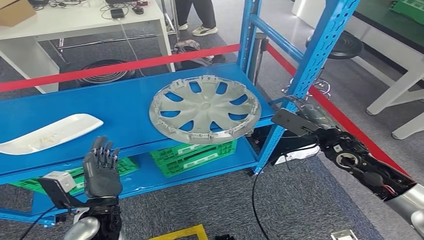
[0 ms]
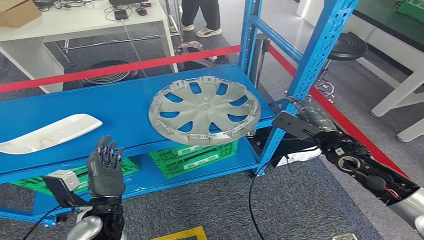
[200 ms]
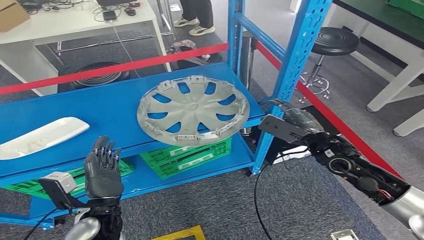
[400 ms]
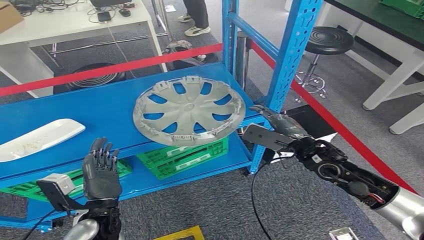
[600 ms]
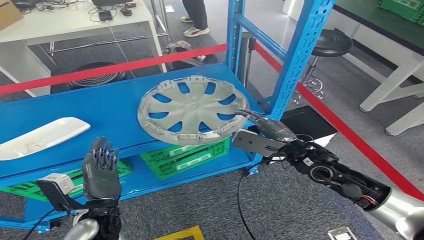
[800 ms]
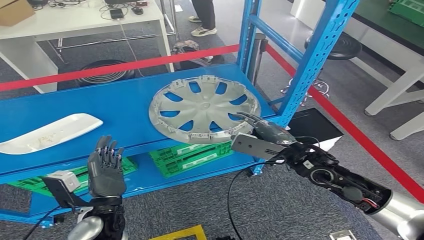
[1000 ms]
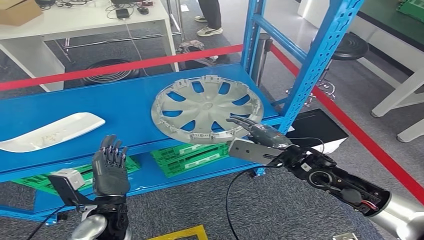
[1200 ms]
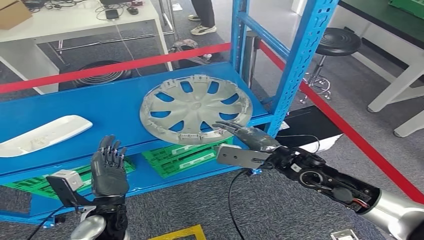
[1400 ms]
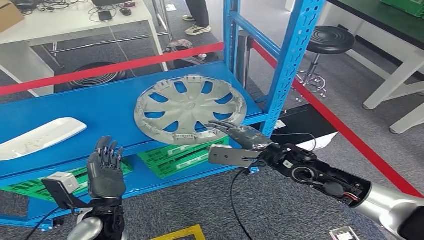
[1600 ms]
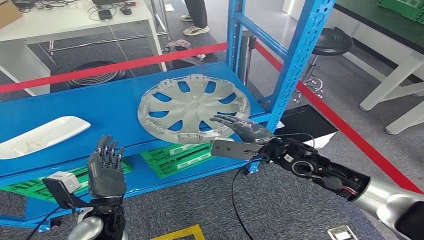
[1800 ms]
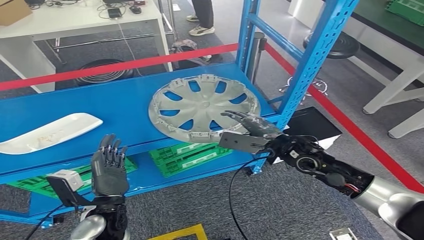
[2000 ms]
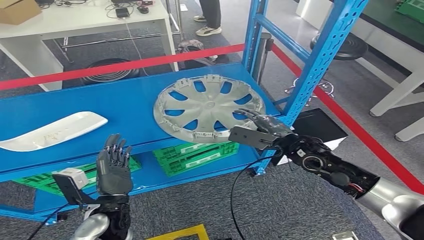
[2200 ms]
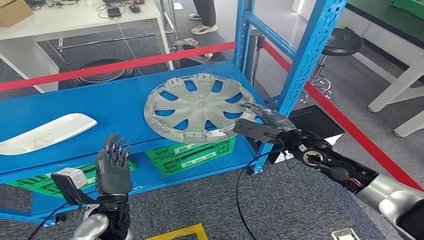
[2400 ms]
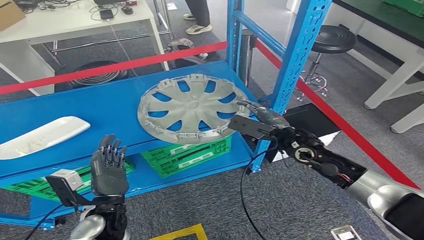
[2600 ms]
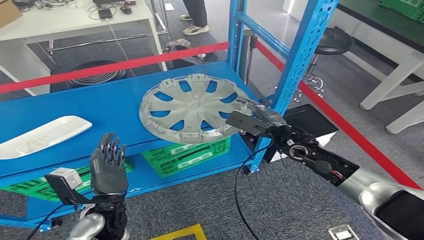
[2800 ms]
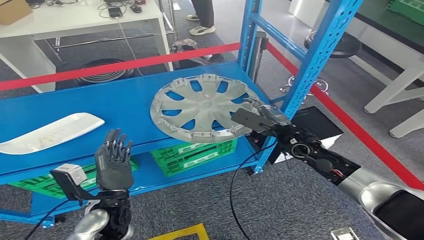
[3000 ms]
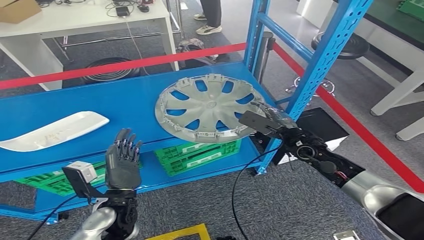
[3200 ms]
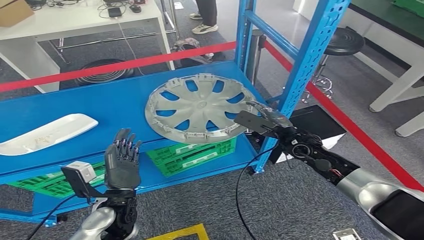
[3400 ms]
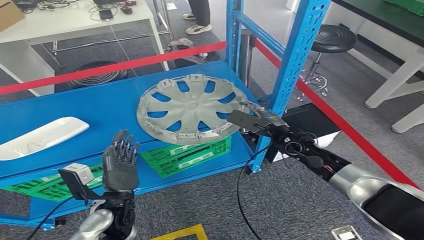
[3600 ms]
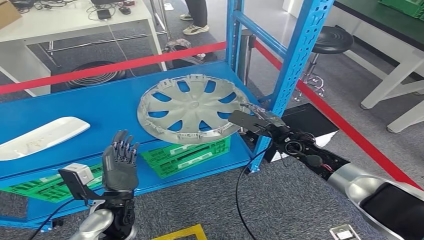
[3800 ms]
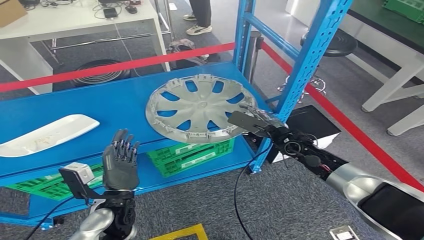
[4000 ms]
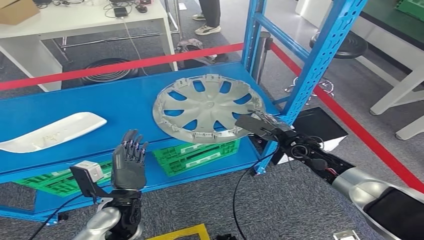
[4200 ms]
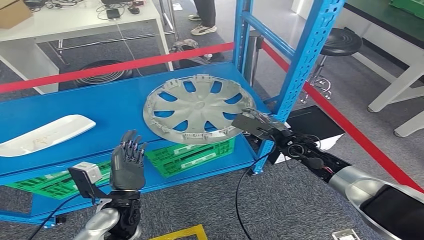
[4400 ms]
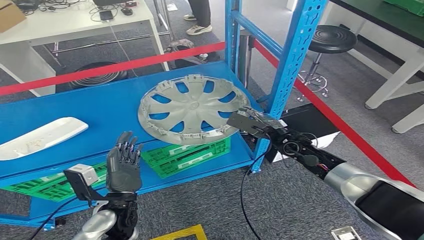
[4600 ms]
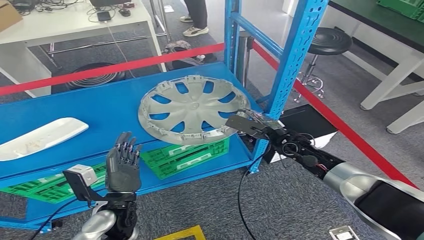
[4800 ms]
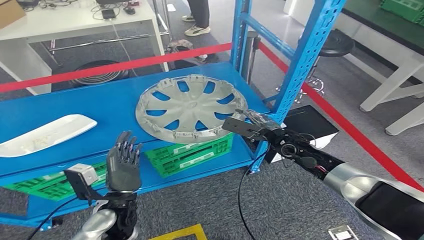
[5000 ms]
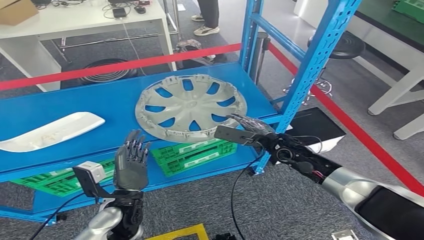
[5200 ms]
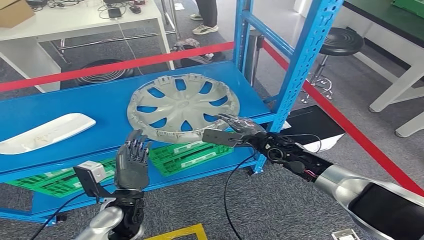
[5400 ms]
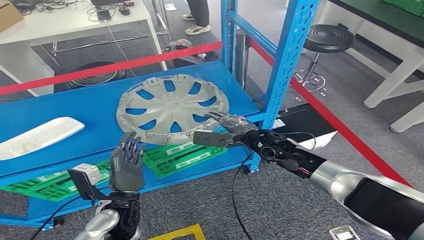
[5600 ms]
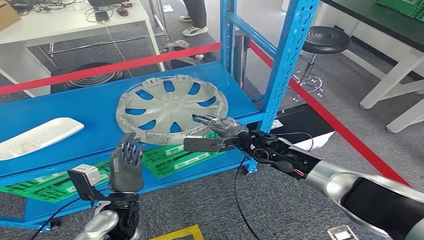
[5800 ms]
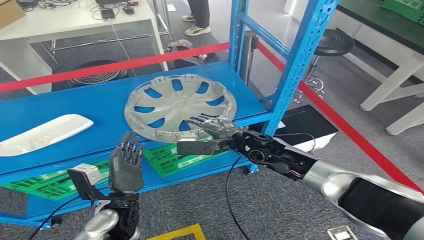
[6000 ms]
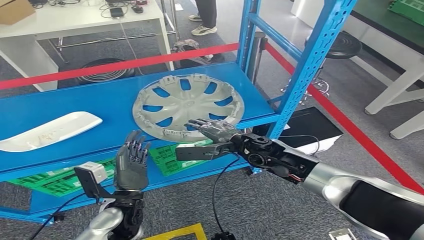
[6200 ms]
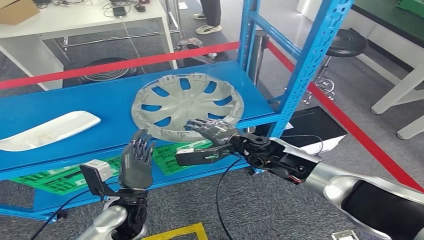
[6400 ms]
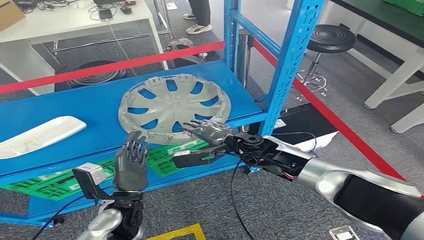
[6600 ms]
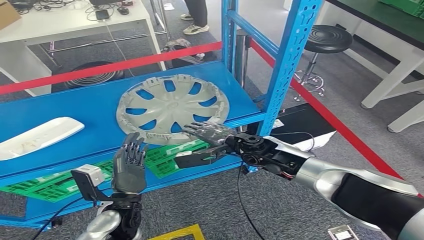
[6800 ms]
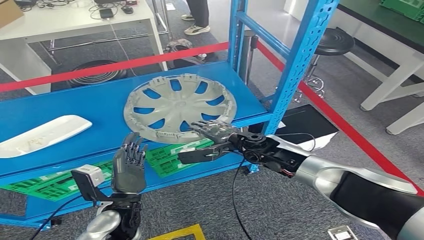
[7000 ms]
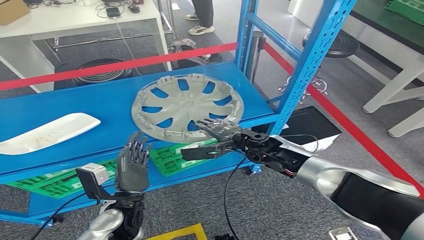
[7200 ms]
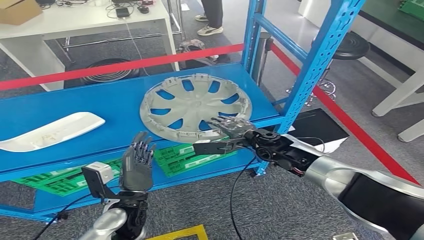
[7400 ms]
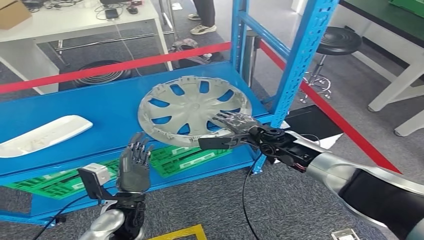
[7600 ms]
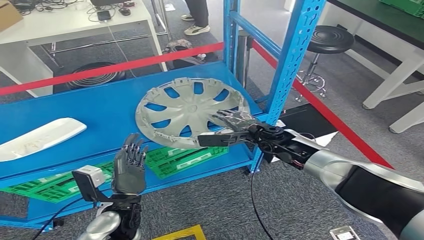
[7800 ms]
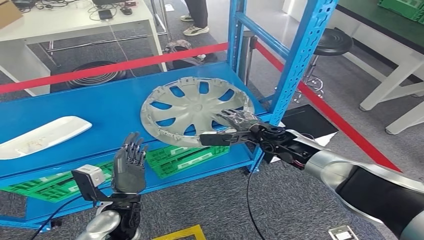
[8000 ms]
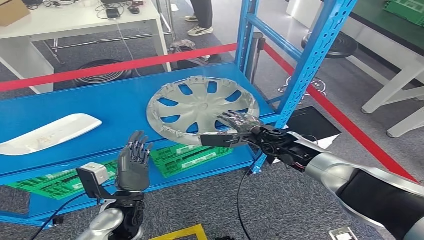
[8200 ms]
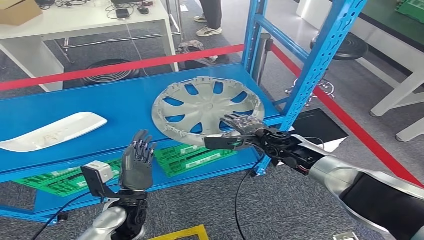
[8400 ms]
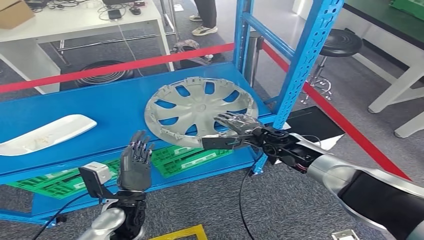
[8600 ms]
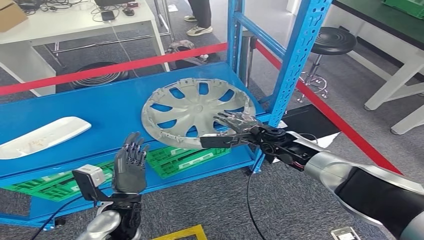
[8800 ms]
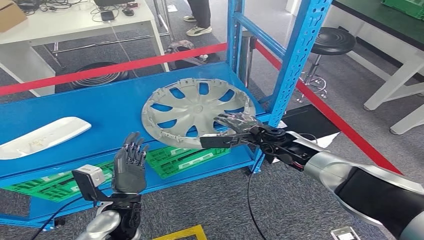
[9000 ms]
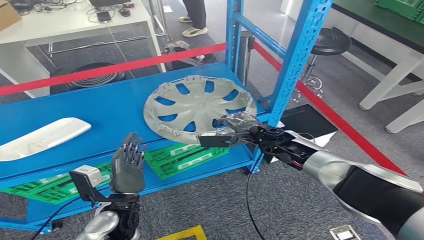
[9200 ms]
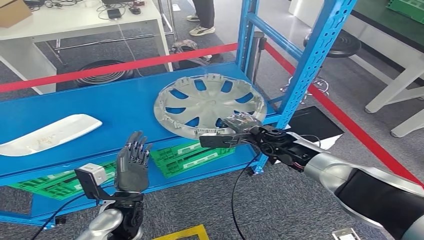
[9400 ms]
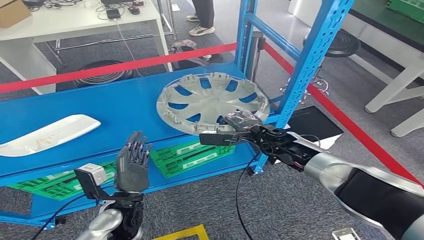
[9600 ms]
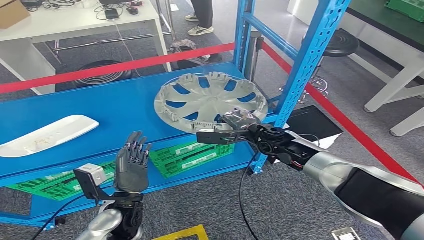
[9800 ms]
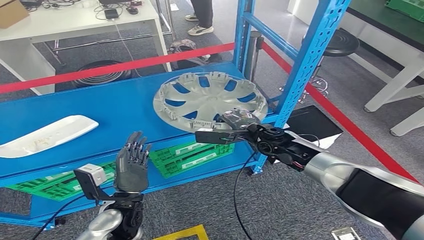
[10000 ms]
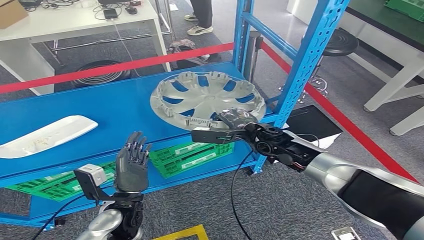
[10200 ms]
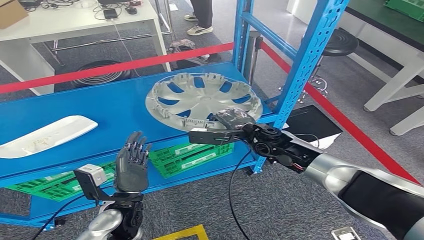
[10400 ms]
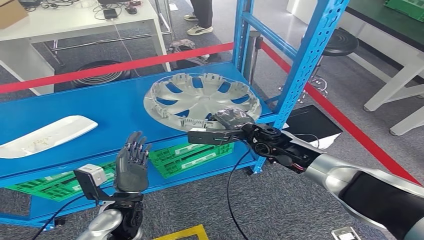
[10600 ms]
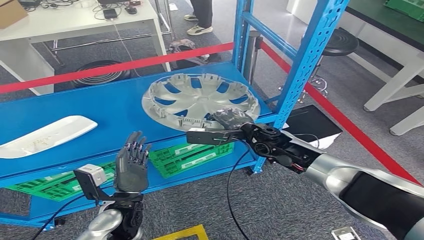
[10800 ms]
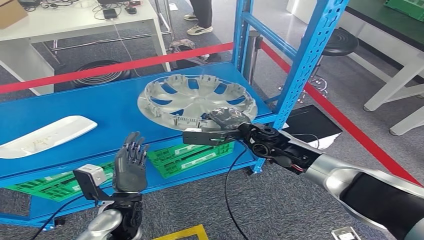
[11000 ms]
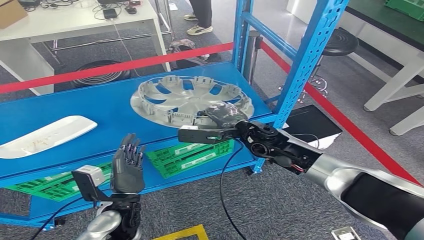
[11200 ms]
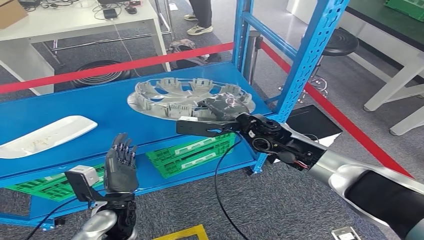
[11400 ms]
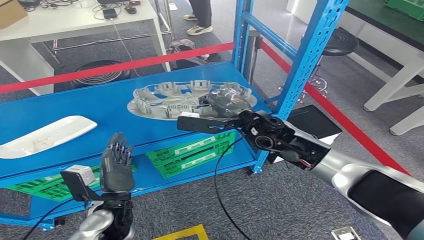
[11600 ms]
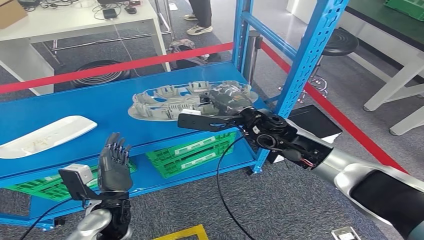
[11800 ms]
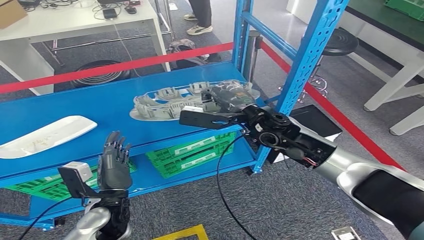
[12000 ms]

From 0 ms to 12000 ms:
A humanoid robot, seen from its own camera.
From 7600 ms to 10400 ms: There are only small adjustments of the hands.
From 10400 ms to 12000 ms: The right hand is displaced upward by some 10 cm.

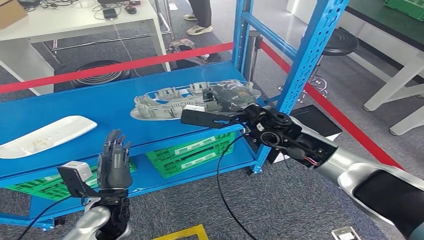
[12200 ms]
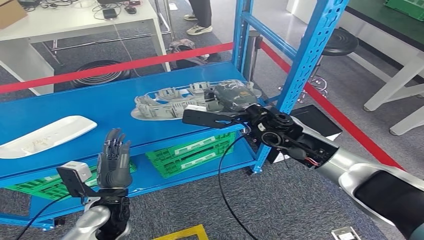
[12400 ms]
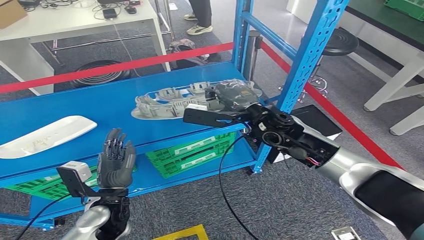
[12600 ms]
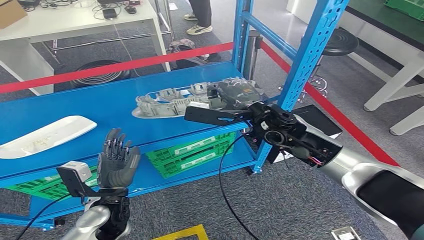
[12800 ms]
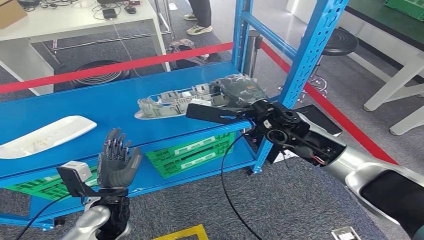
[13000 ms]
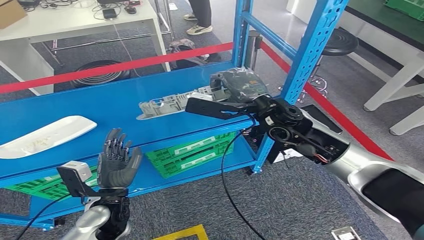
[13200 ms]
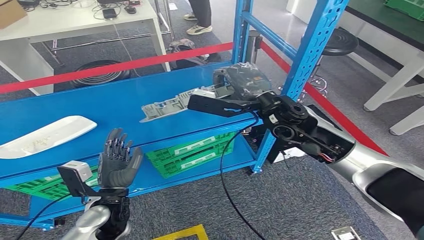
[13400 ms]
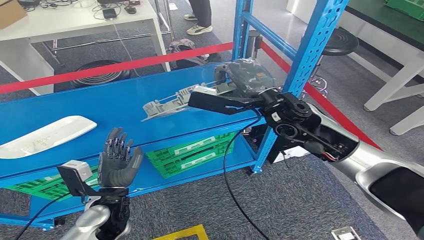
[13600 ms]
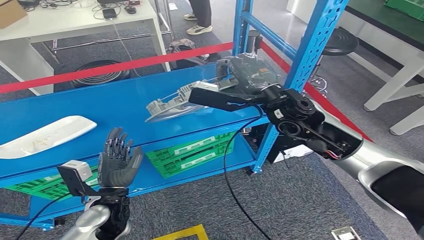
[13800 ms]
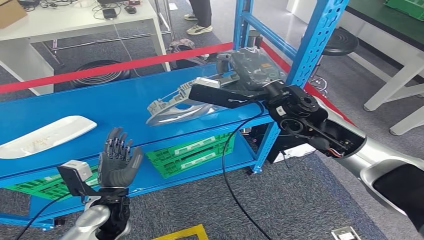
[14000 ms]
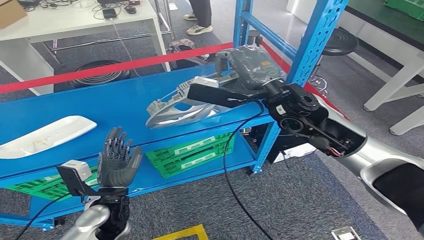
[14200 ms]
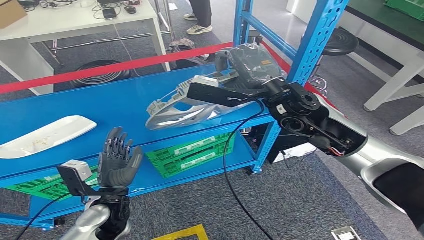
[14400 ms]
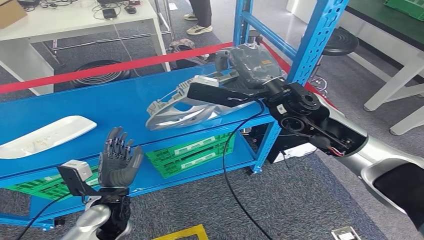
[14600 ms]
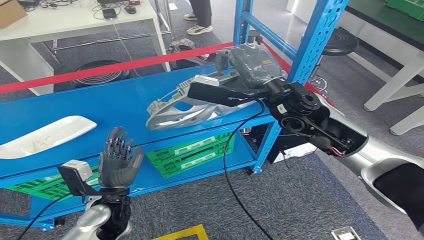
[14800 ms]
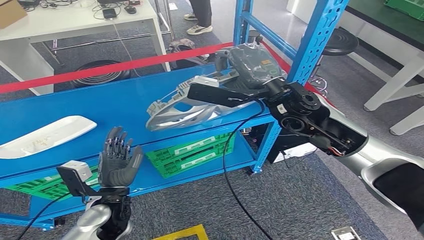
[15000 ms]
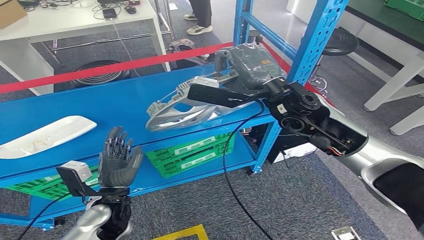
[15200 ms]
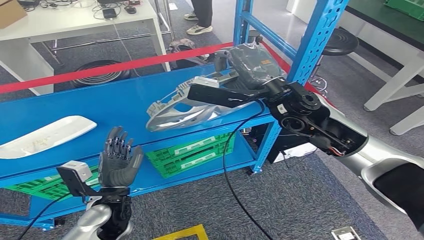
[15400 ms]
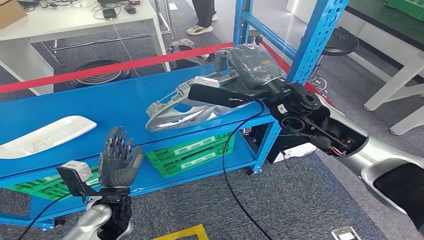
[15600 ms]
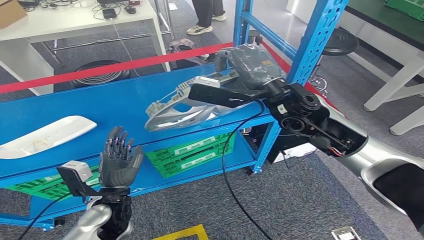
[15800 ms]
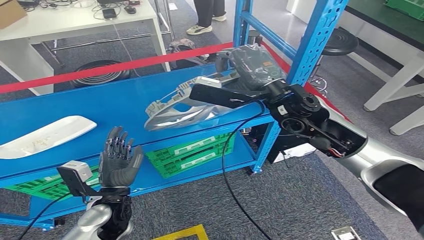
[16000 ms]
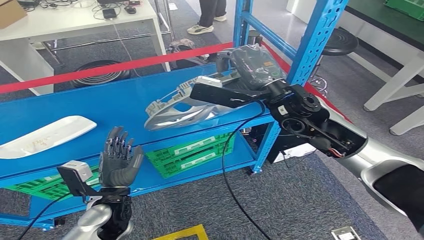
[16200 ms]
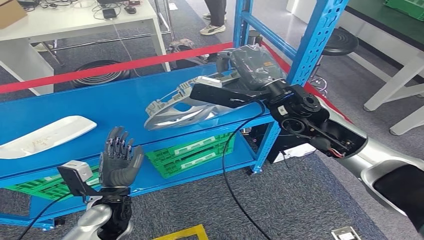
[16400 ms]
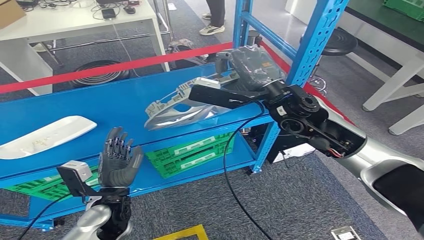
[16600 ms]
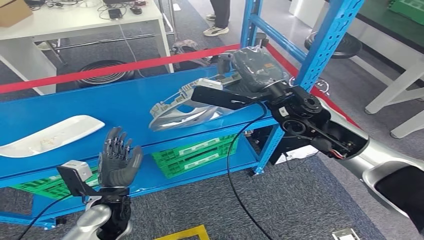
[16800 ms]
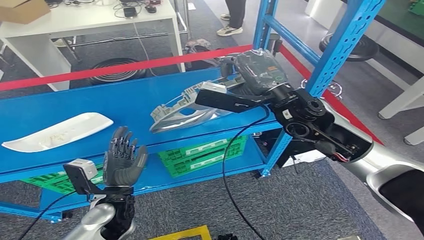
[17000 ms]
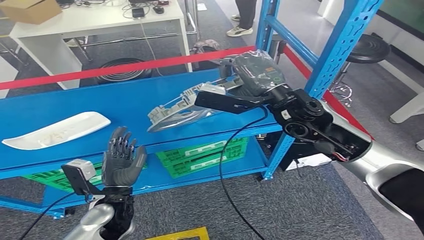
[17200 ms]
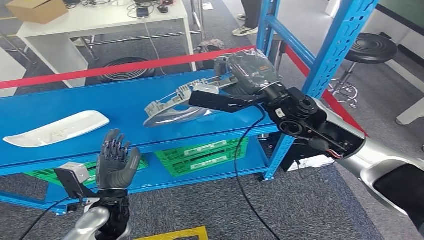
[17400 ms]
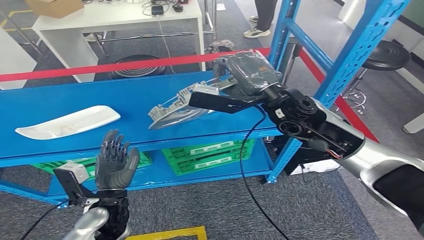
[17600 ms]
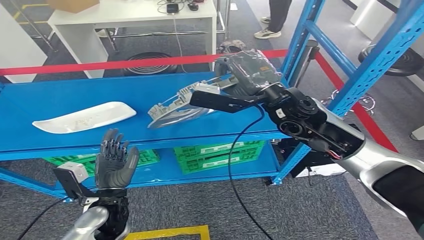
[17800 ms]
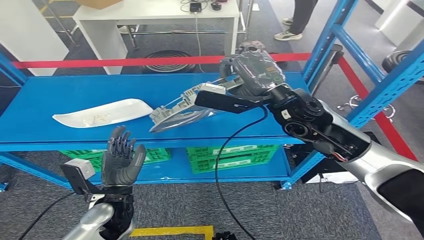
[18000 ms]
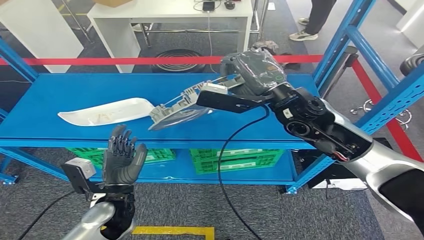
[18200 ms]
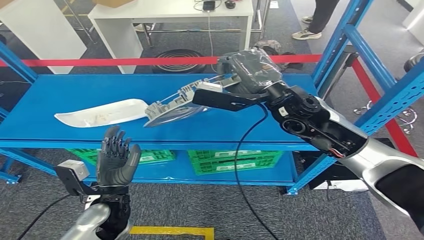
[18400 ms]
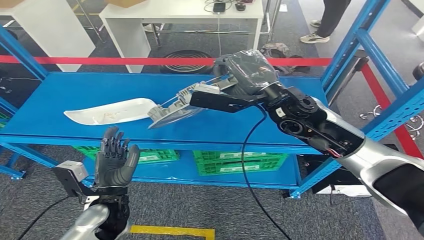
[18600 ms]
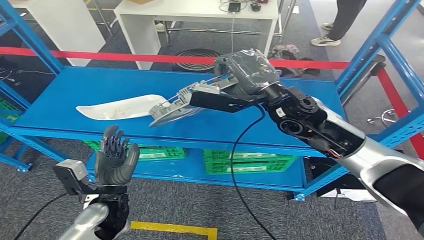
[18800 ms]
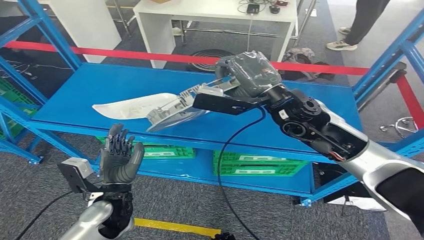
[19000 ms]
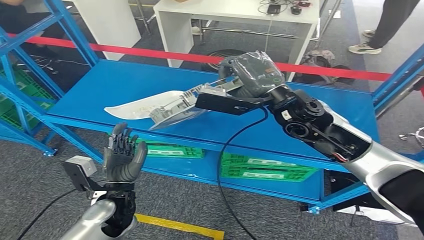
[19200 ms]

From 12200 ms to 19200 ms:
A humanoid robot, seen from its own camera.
Step, from 12200 ms to 15200 ms: Pick up the small parts from the shelf.
From 12200 ms to 13600 ms: The right hand moves upward, roughly 5 cm.
From 13600 ms to 15000 ms: The hands stay close to where they were, moving slightly.
From 15000 ms to 16400 ms: Neither hand changes place.
